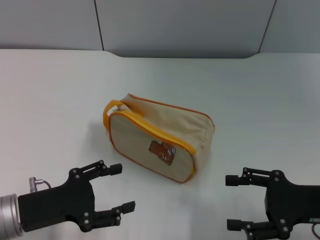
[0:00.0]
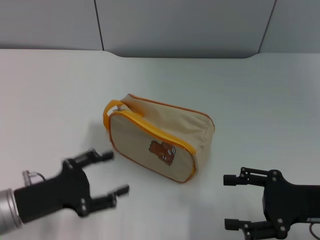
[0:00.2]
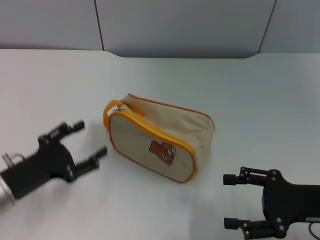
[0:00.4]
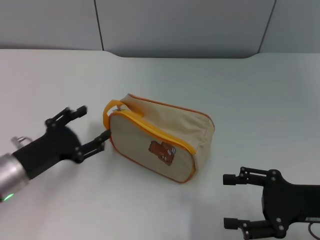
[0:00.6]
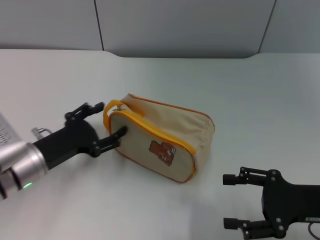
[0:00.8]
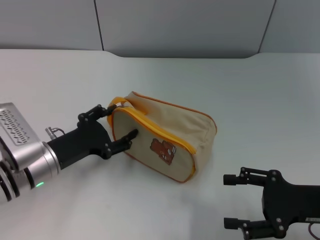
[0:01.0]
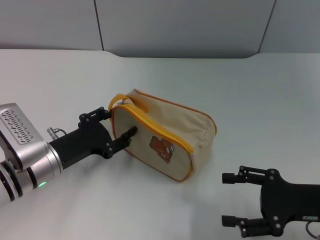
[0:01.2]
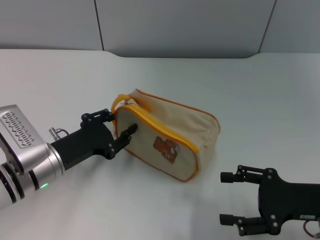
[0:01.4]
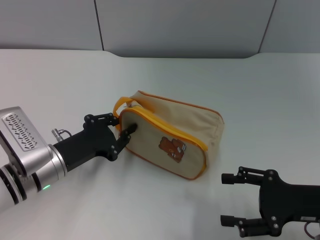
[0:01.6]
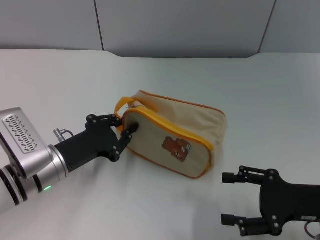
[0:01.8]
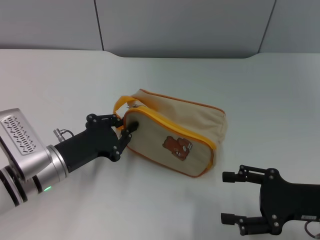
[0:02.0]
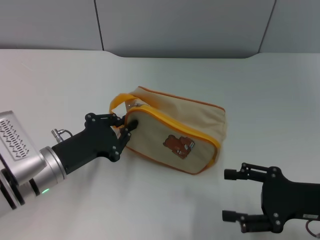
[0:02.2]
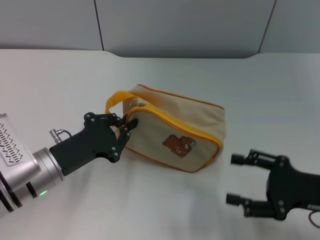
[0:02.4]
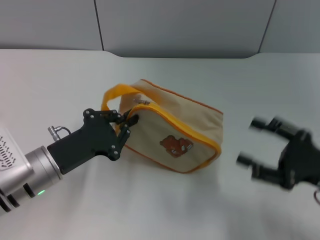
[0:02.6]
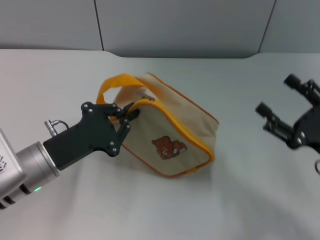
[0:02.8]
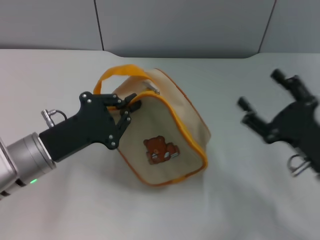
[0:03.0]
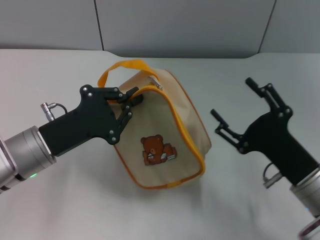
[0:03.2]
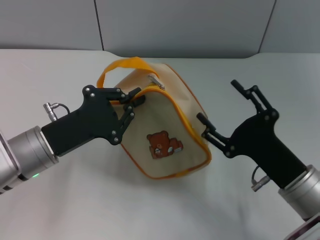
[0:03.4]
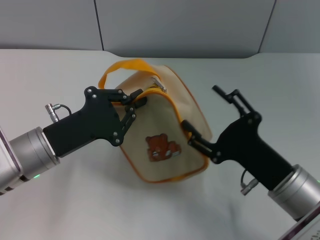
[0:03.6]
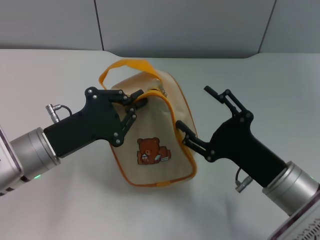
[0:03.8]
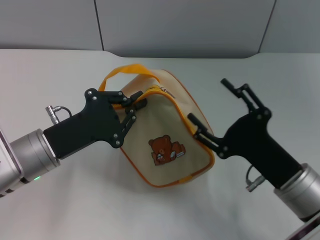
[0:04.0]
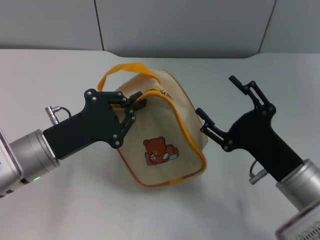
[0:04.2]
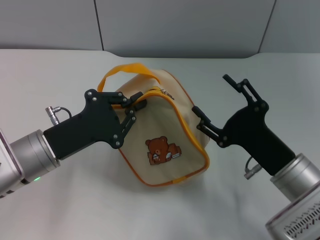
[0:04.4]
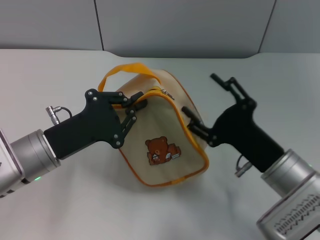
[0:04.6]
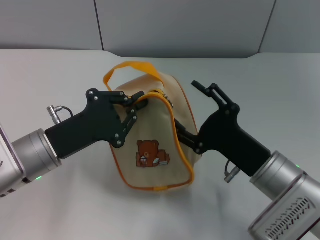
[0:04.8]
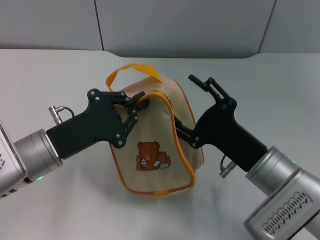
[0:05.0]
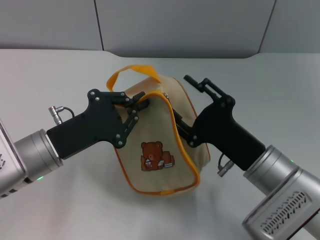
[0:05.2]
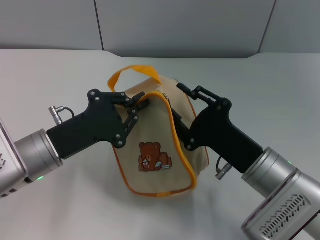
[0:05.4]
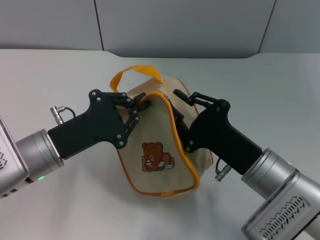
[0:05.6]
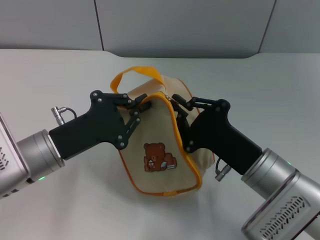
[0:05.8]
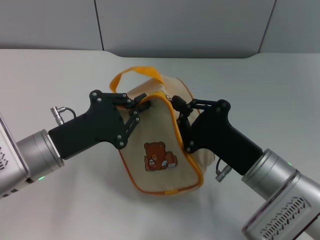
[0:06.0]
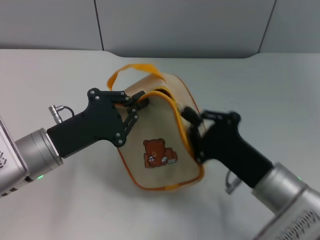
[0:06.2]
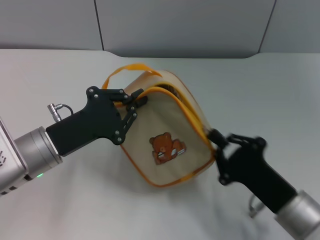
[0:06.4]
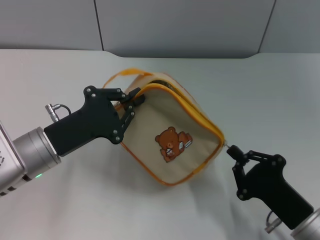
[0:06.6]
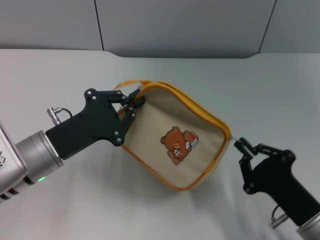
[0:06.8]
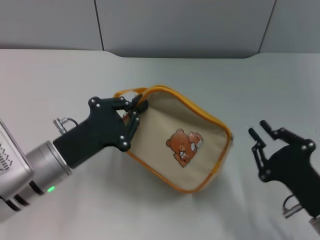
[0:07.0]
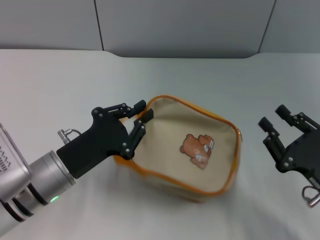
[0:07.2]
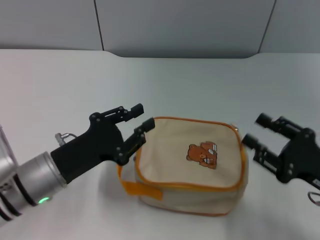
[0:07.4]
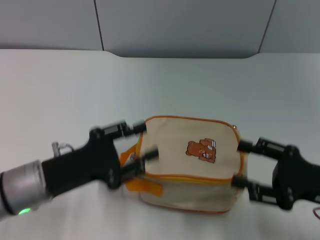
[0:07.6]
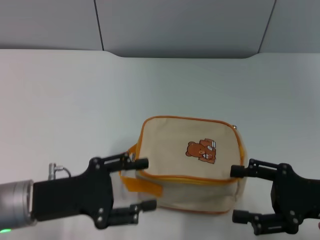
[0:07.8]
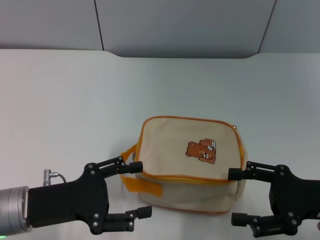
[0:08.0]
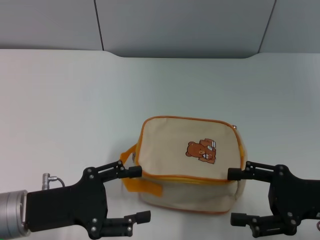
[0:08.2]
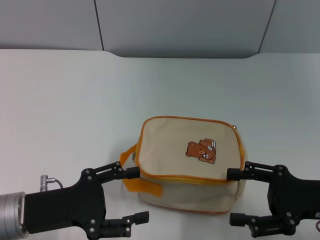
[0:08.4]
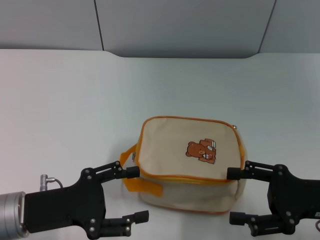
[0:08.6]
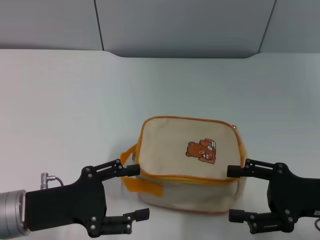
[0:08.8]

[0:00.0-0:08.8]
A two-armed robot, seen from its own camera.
Step, 0:00.0 to 0:02.4: Pick up the bag with left gripper.
Step, 0:02.8 to 0:06.8: Unzip the zipper of bag with right gripper.
Step, 0:07.0 to 0:07.2: Place the bag on the table with left gripper.
0:00.0 to 0:01.4: The left gripper travels forward by some 5 cm.
0:01.4 to 0:03.0: The left gripper closes its fingers.
0:03.0 to 0:04.4: The right gripper heads to the left, covering some 5 cm.
0:04.4 to 0:05.8: The right gripper closes.
0:05.8 to 0:07.4: The right gripper travels to the right by about 15 cm.
0:07.4 to 0:08.8: The right gripper opens up. Meanwhile the left gripper shifts by roughly 5 cm, and opens its fingers.

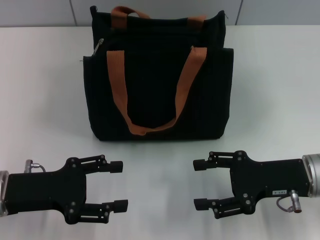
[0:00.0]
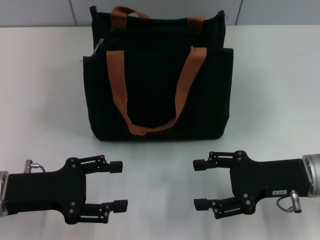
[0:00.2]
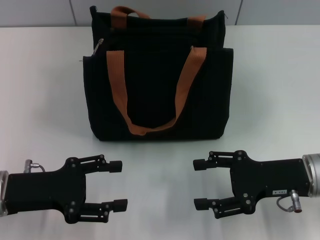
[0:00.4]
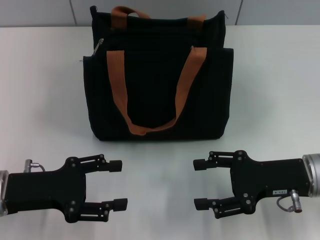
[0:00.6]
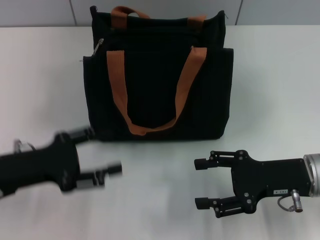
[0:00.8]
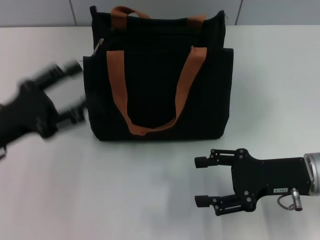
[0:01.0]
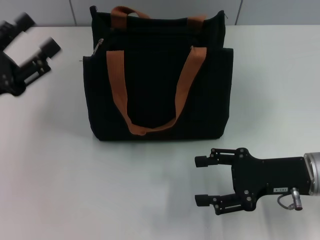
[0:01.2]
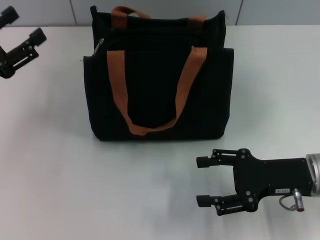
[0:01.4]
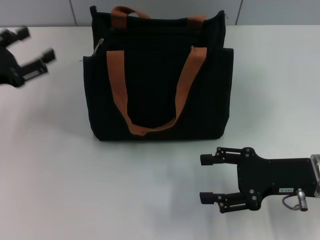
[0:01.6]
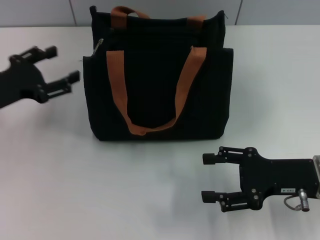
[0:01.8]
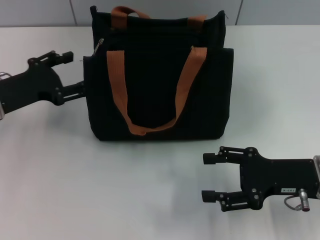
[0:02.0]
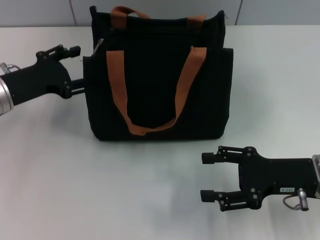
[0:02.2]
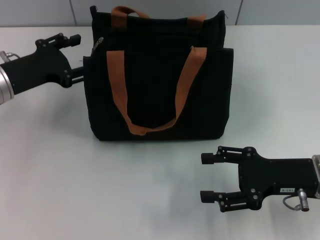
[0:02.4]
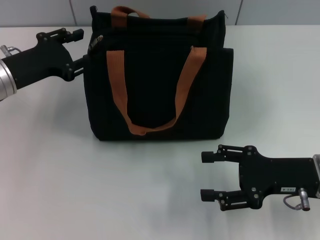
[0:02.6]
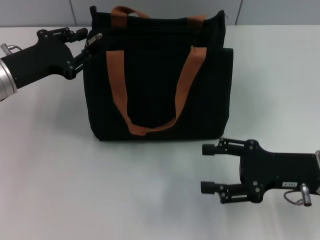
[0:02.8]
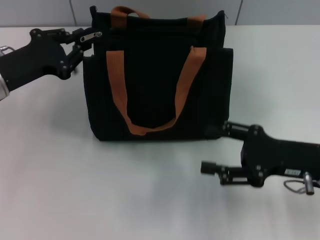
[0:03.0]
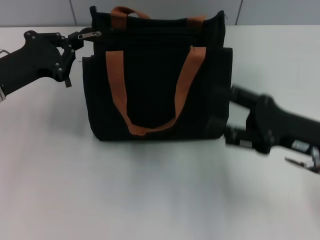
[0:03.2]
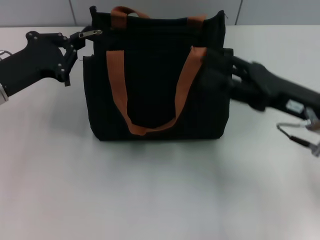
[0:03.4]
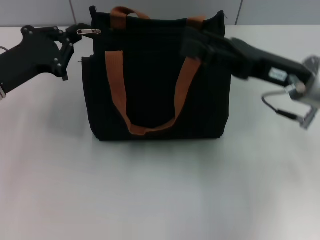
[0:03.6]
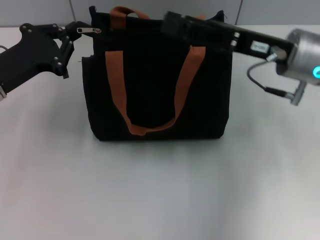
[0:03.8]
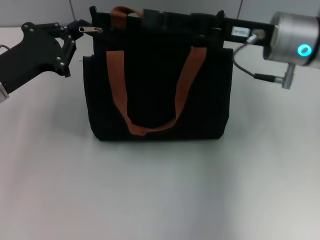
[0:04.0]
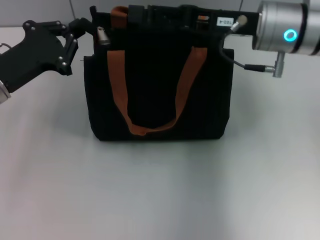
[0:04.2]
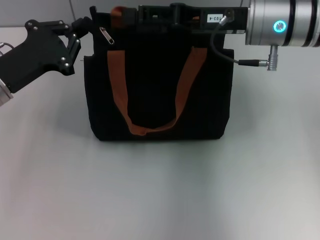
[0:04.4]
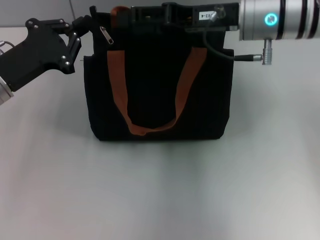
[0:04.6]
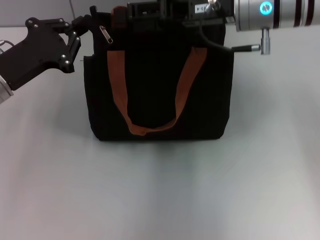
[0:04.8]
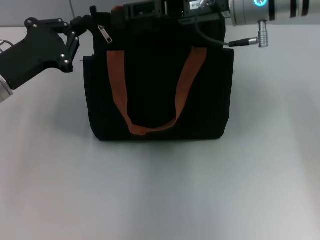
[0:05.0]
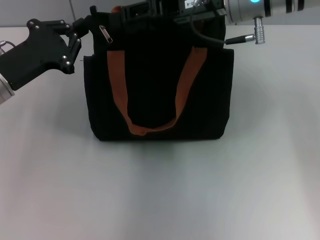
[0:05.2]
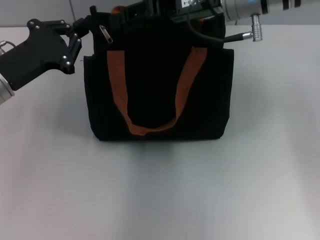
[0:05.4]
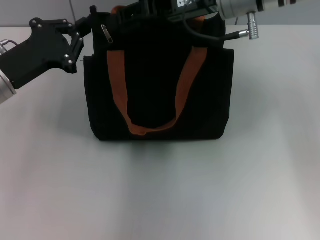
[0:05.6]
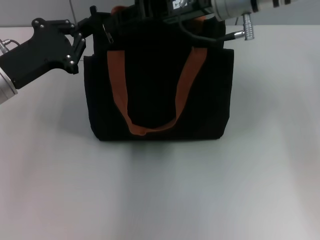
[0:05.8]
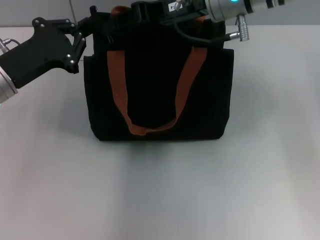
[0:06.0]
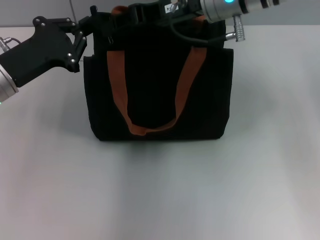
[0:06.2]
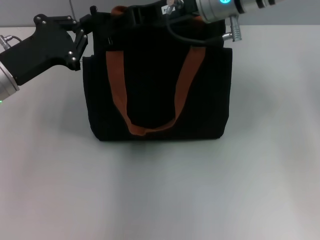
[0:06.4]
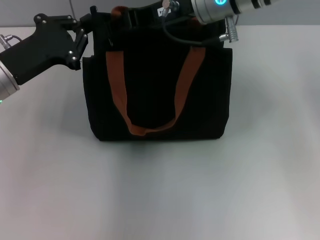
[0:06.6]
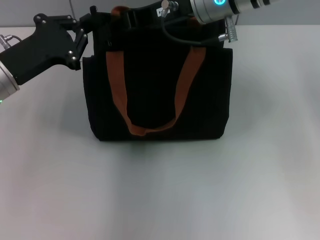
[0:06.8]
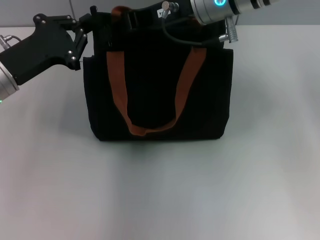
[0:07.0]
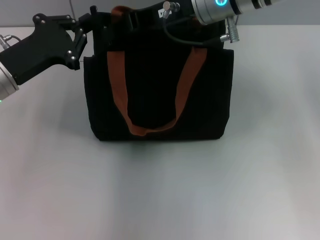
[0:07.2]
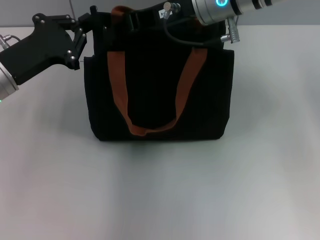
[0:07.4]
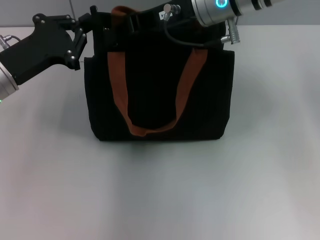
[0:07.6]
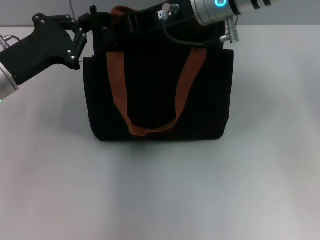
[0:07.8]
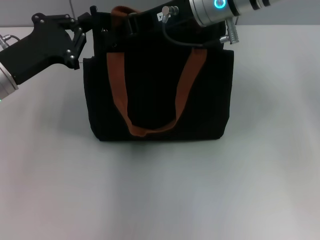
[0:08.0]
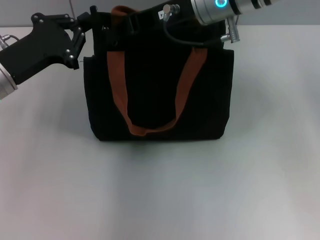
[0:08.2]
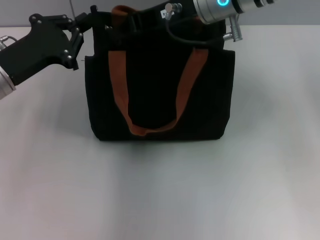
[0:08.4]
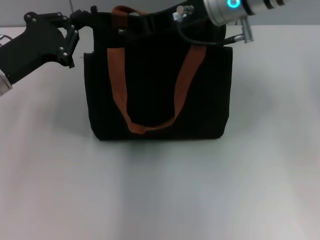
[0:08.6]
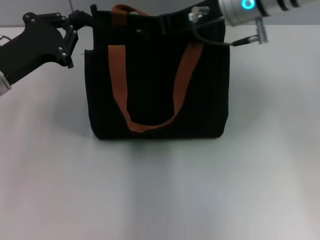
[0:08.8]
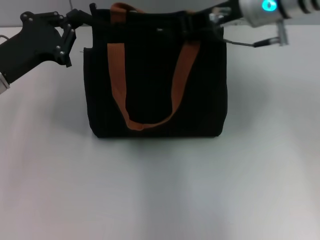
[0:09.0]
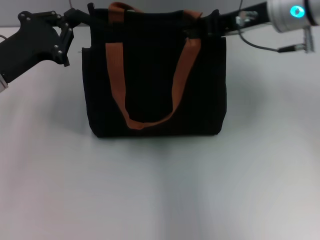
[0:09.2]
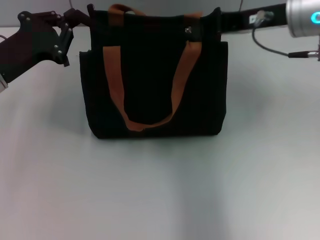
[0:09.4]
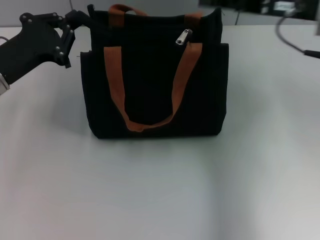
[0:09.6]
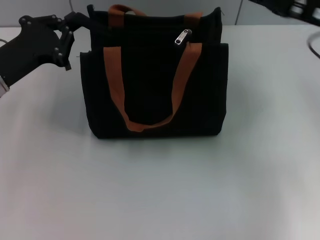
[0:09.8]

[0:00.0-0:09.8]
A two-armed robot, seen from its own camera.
Step, 0:00.0 to 0:09.4: Pull up the zipper with your right hand.
0:00.0 to 0:01.4: The left gripper goes some 10 cm to the left, forward and upward.
0:01.4 to 0:02.8: The left gripper goes approximately 10 cm to the right and forward.
0:02.8 to 0:04.2: The right gripper shifts roughly 20 cm forward, upward and to the left. Meanwhile the left gripper closes its fingers.
0:04.2 to 0:05.6: The right gripper moves roughly 5 cm, and closes up.
0:05.6 to 0:07.0: The grippers make only small movements.
0:07.0 to 0:08.4: The two grippers keep their place.
0:08.4 to 0:09.8: The right gripper shifts some 20 cm to the right and backward.

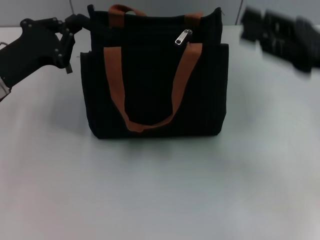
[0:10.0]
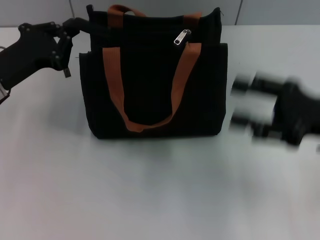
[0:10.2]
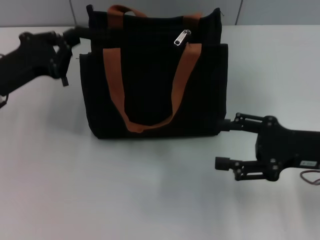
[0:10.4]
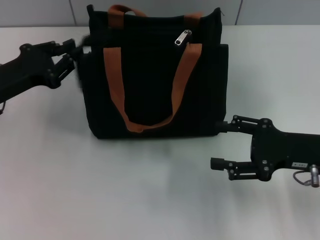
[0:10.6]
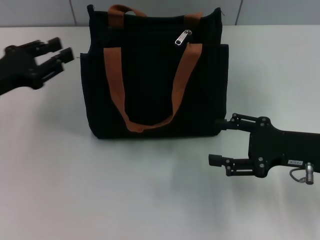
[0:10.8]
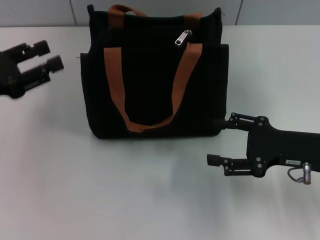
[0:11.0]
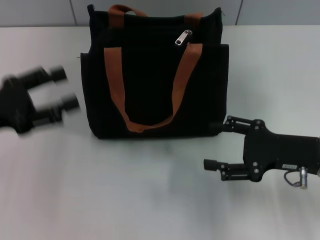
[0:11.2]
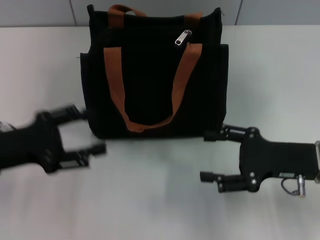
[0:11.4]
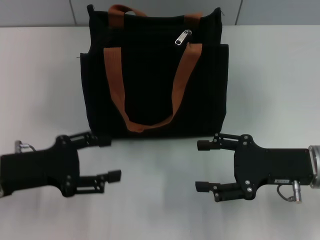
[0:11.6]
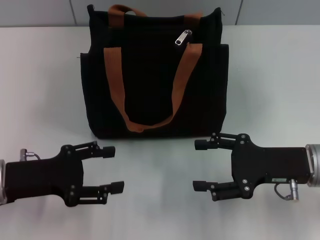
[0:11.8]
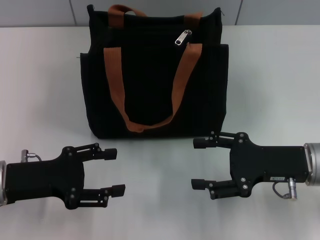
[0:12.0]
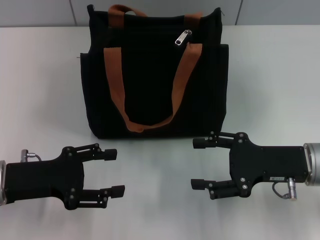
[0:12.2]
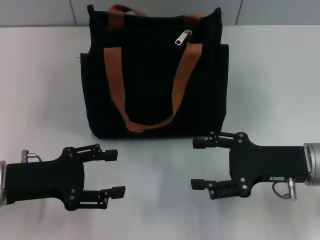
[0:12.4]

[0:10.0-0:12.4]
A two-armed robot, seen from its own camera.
Step, 0:10.0 to 0:10.6: Grab the zipper with your left hand.
0:10.0 to 0:11.2: The left gripper heads backward, covering roughly 5 cm, and opens; the right gripper travels downward by approximately 10 cm, and opens up.
0:11.2 to 0:12.4: The left gripper shifts some 5 cm downward.

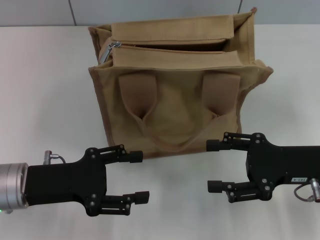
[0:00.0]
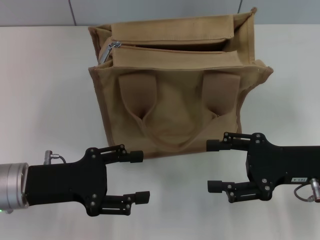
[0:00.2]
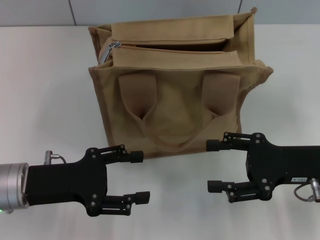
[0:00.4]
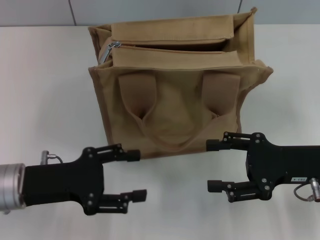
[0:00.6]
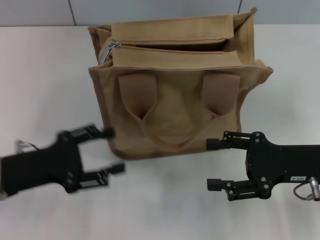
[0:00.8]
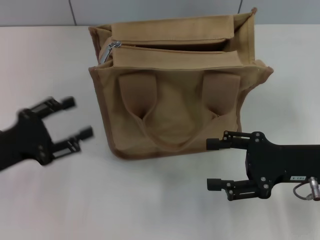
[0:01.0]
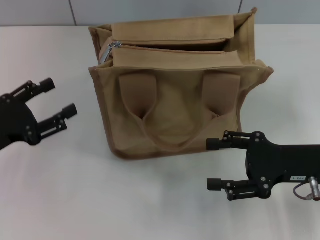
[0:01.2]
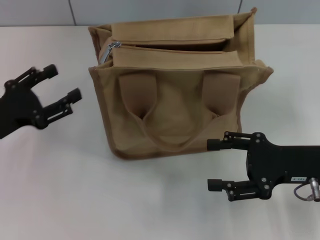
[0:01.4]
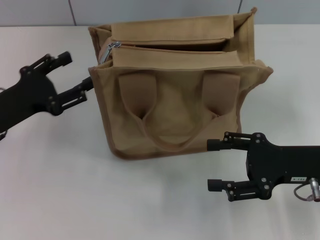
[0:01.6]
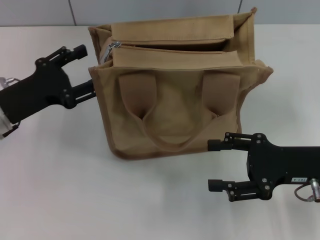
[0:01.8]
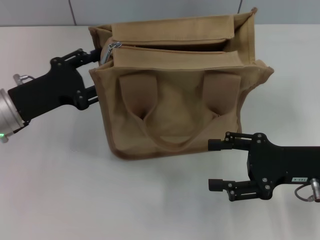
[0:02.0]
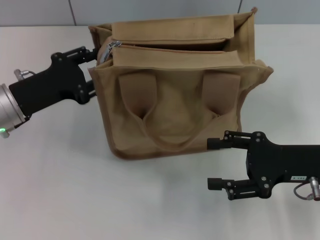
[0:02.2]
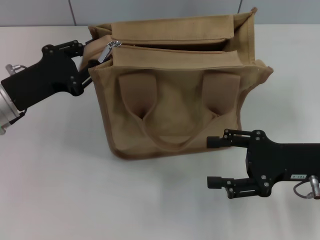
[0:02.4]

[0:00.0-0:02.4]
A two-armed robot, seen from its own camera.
0:00.0 to 0:01.2: The left gripper moves to the left, roughly 5 cm.
0:01.2 to 0:02.4: The left gripper heads forward and to the right, covering roughly 10 cm, and closes its fingers.
